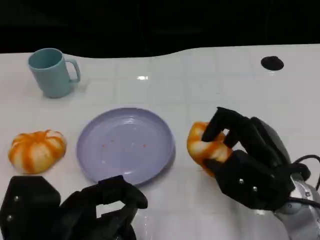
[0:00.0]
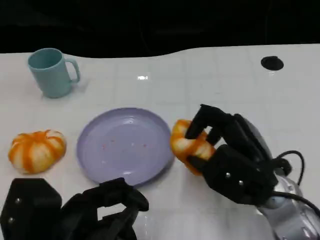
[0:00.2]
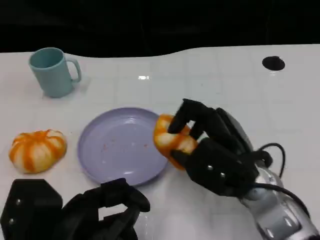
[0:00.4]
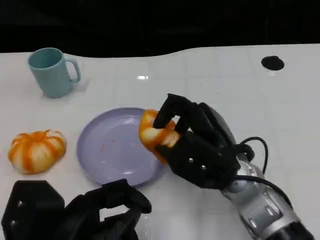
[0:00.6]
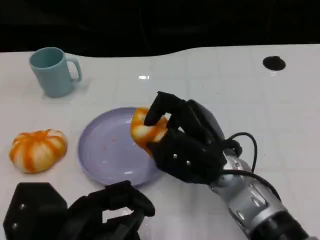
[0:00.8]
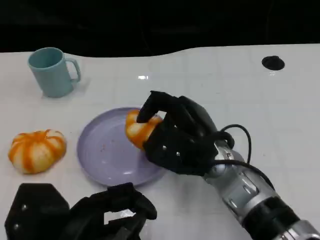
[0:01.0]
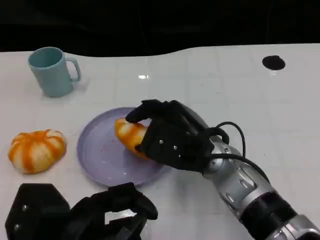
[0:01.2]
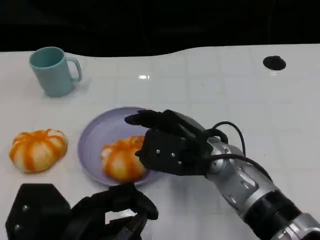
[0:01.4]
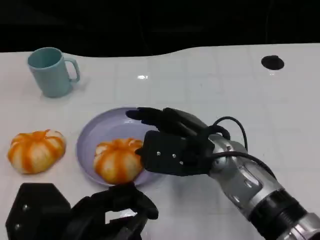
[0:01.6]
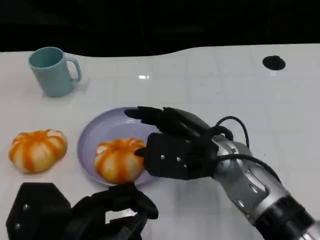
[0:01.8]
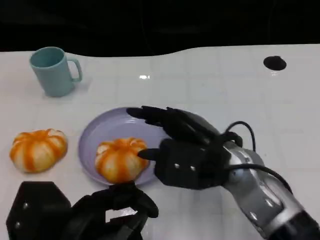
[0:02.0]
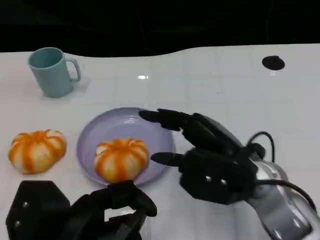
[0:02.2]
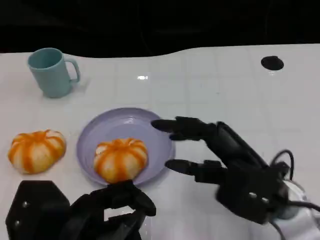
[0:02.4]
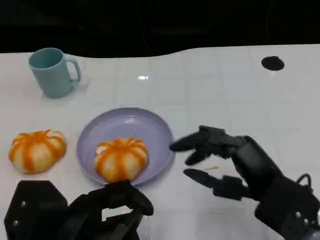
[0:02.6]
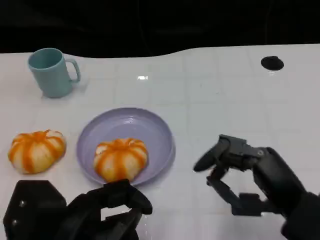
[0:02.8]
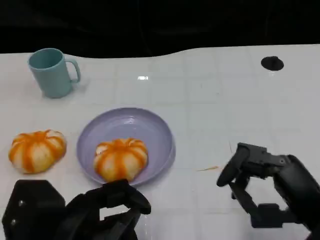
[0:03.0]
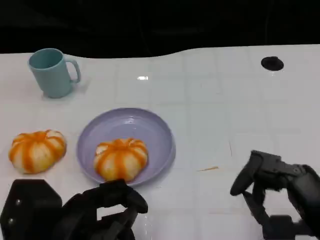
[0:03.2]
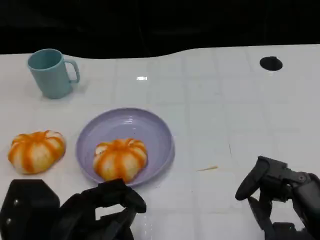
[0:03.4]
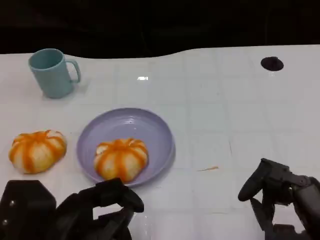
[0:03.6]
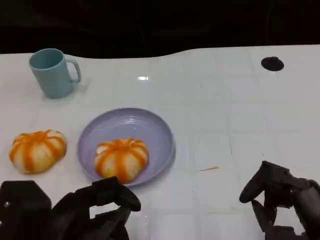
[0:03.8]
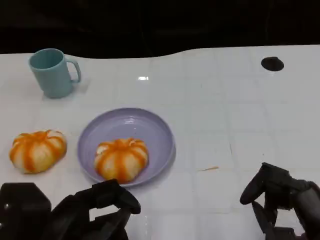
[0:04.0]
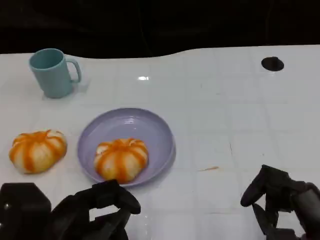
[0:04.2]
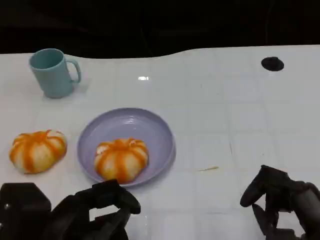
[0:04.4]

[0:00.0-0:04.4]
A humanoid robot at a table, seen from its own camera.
Task of the whole recording: Grasp the bread from the table and place it into the plate.
0:00.0 to 0:01.4: The right hand goes some 10 cm to the left.
0:01.4 to 0:03.0: The right hand shifts roughly 20 cm to the right and backward.
0:03.0 to 0:04.4: There are only small adjustments of the hands.

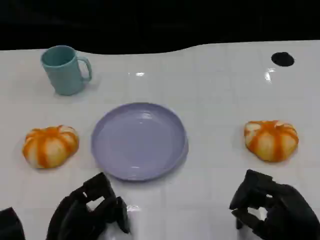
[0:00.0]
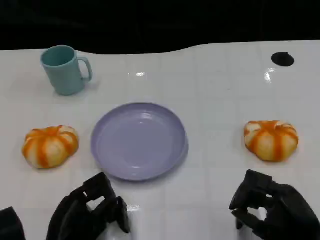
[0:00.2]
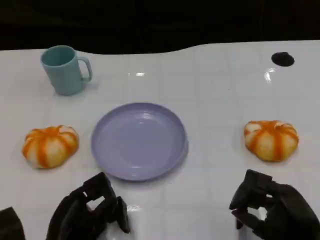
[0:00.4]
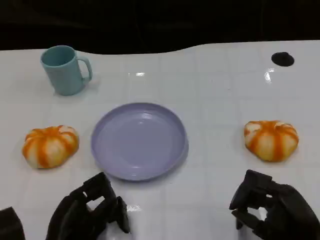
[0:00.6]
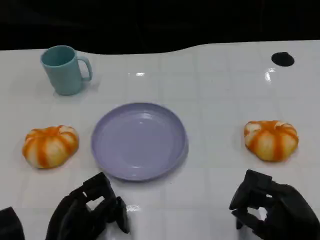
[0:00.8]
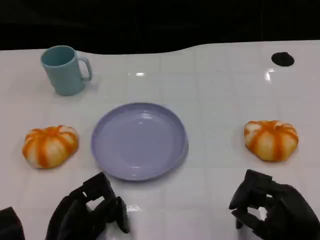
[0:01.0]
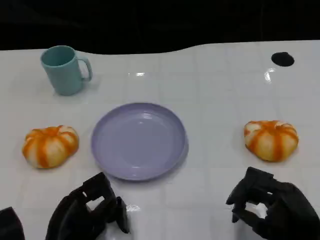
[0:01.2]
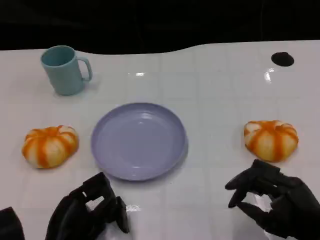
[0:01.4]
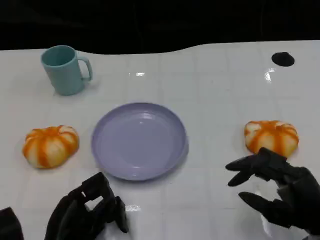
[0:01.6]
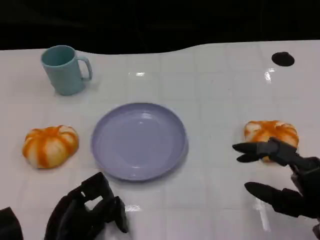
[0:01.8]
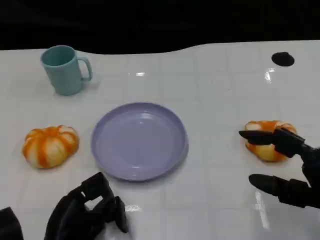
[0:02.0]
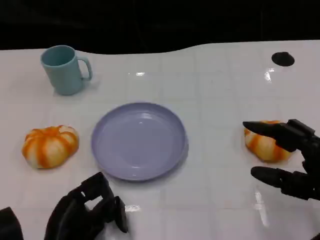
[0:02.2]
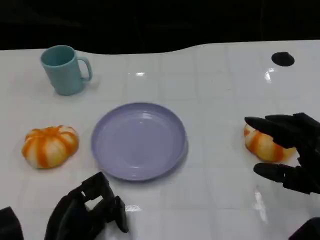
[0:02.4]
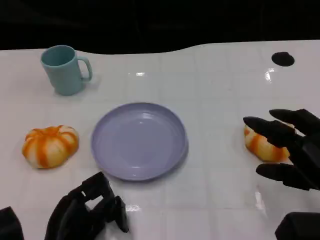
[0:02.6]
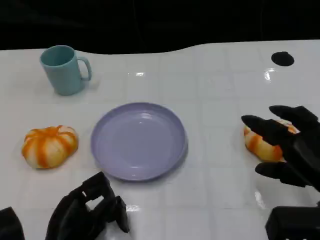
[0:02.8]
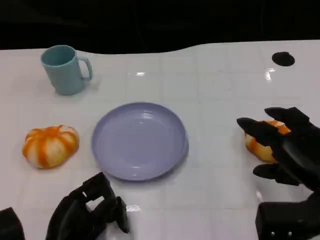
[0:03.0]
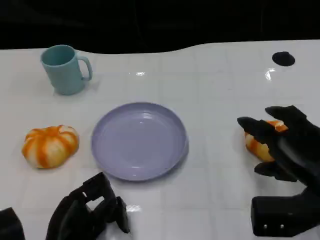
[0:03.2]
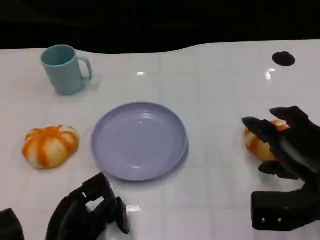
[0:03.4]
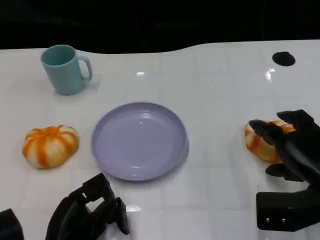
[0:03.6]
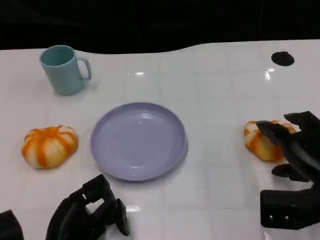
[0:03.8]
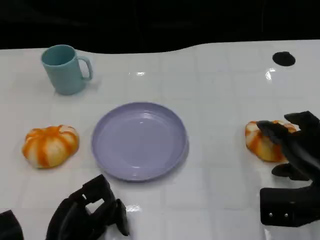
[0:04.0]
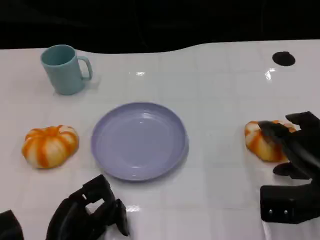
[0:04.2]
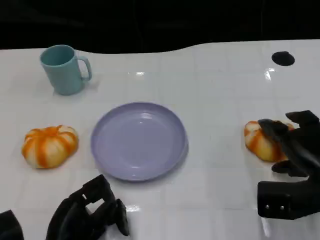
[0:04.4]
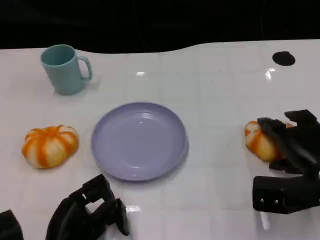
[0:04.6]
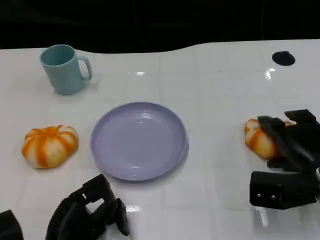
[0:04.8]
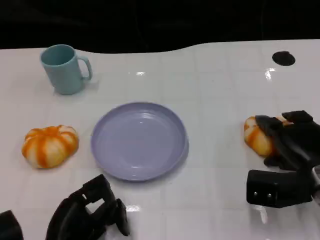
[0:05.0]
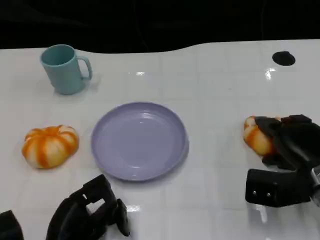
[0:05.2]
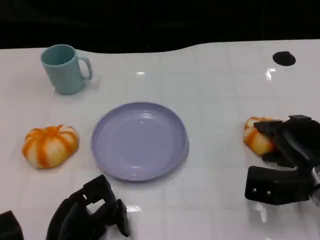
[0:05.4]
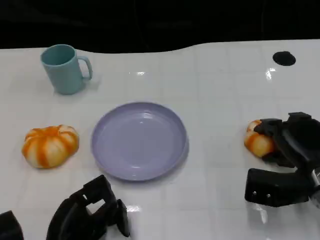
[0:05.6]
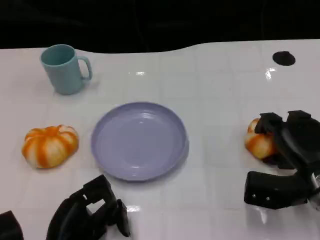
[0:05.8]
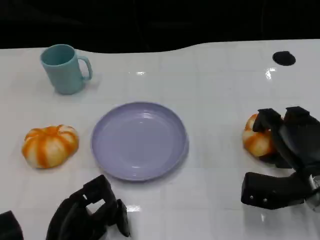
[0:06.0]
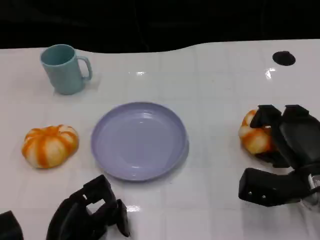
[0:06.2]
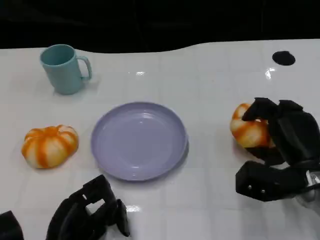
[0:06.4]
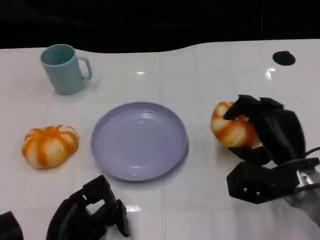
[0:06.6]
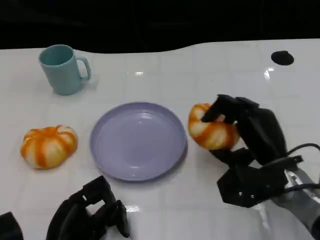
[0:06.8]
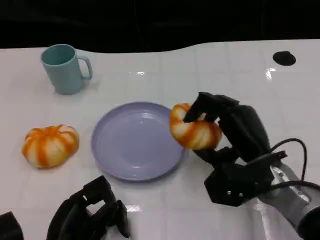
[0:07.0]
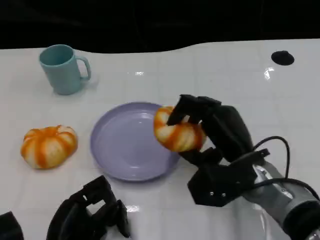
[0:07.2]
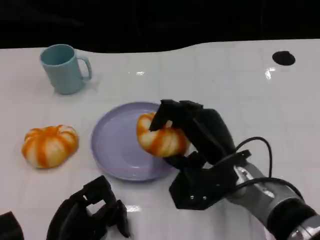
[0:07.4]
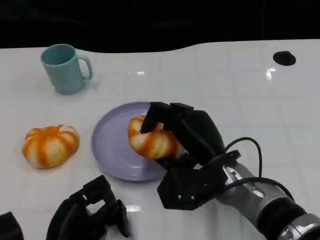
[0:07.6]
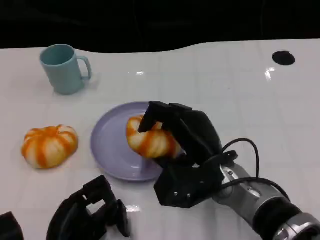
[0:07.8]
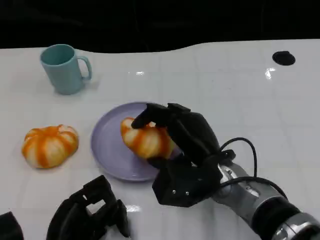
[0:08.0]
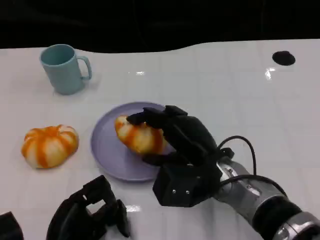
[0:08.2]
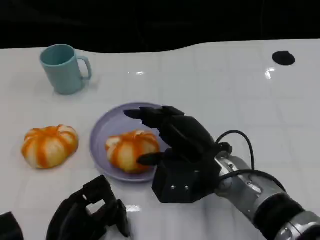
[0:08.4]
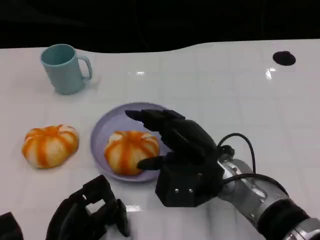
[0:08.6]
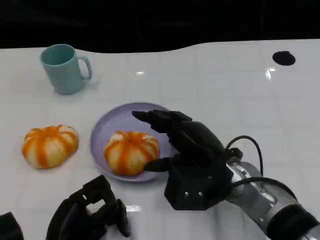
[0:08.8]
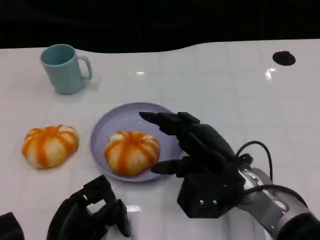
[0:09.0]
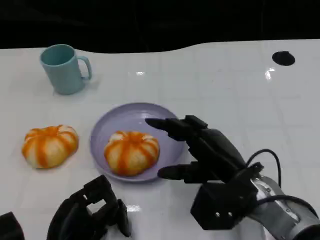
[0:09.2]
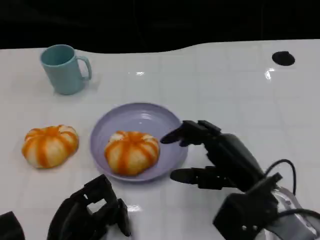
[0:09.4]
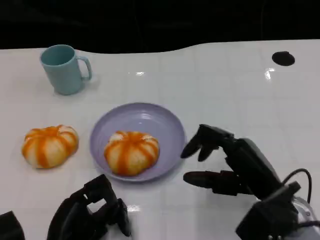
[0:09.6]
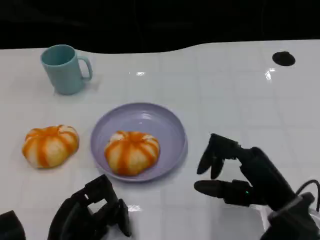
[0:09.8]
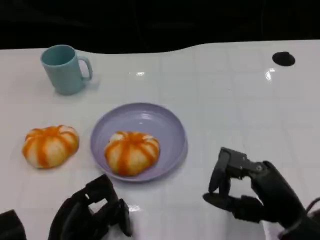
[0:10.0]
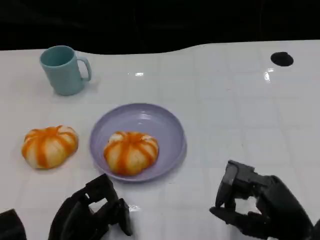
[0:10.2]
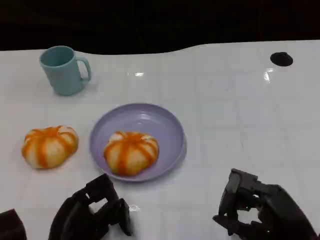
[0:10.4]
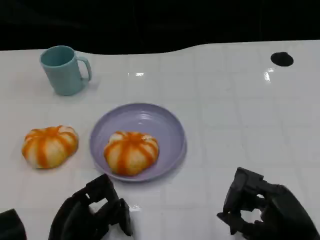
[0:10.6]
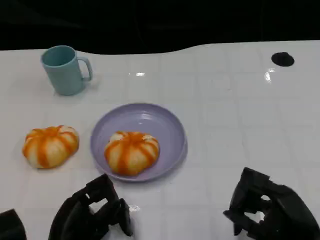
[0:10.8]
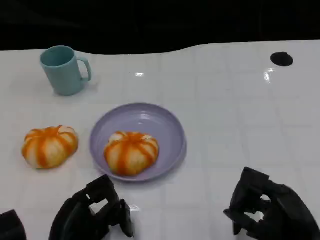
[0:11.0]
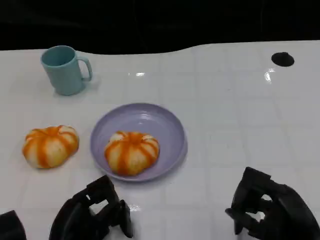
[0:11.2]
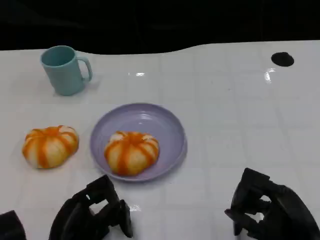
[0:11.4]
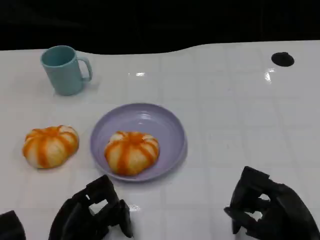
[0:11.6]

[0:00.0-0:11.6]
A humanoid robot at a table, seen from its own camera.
Task of the whole recording: Grasp the bread from the table and place it into the plate.
0:00.0 to 0:01.4: The hands stay close to where they were, moving slightly.
0:01.4 to 0:02.8: The right hand travels upward by roughly 5 cm.
0:02.8 to 0:04.4: The right hand moves forward, roughly 5 cm.
0:04.4 to 0:05.8: The hands move only a little.
0:05.8 to 0:07.2: The right hand moves to the left, some 10 cm.
0:08.8 to 0:10.2: The right hand travels to the right and backward by approximately 15 cm.
0:10.2 to 0:11.6: The hands make only small movements.

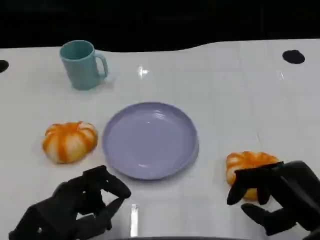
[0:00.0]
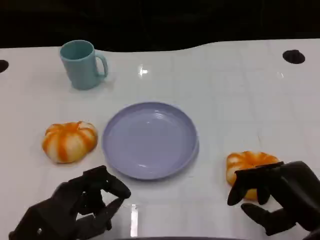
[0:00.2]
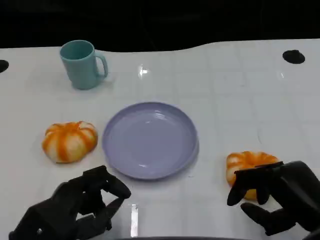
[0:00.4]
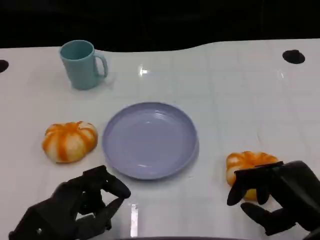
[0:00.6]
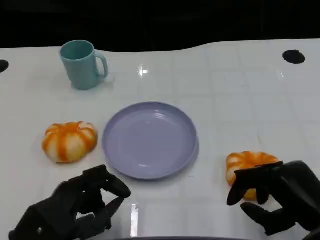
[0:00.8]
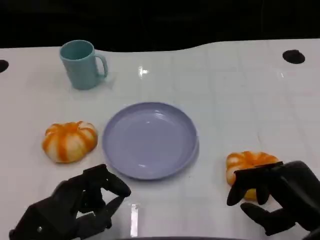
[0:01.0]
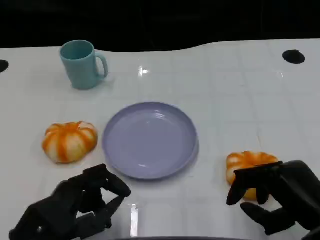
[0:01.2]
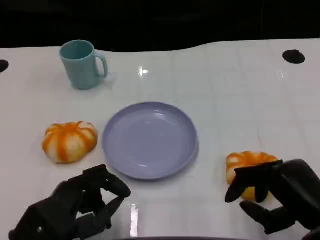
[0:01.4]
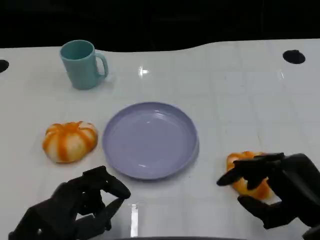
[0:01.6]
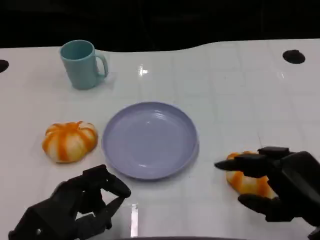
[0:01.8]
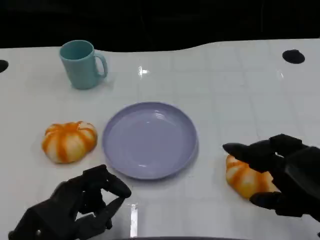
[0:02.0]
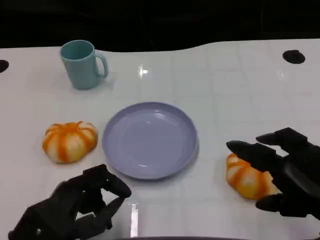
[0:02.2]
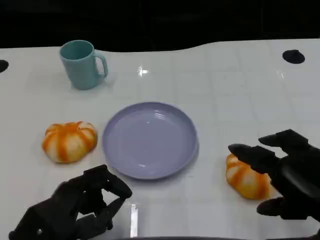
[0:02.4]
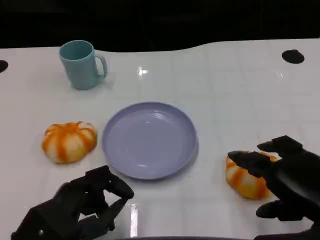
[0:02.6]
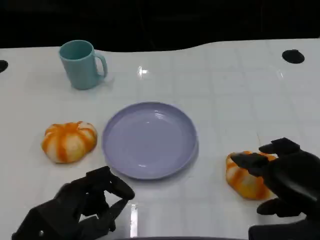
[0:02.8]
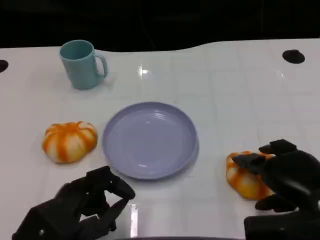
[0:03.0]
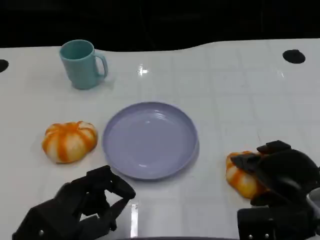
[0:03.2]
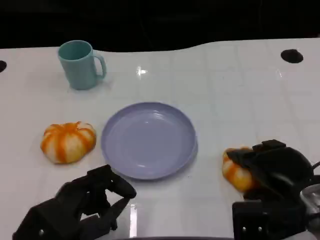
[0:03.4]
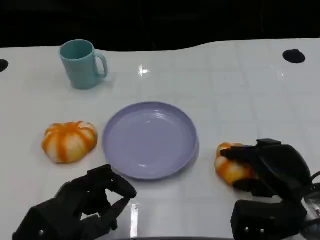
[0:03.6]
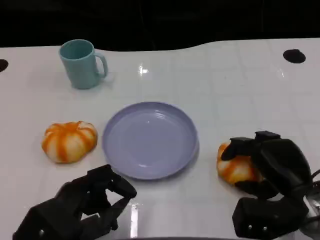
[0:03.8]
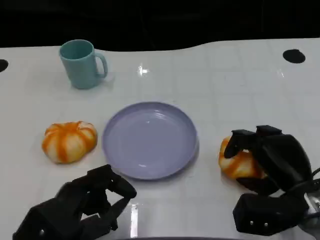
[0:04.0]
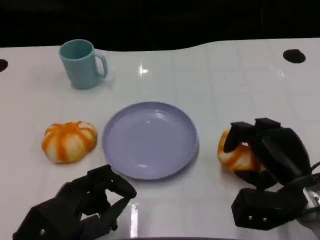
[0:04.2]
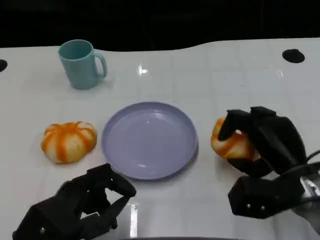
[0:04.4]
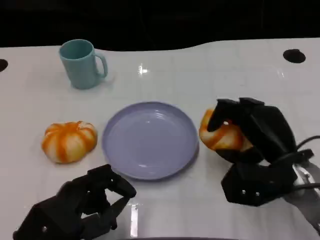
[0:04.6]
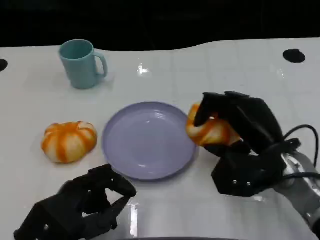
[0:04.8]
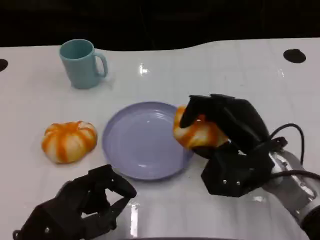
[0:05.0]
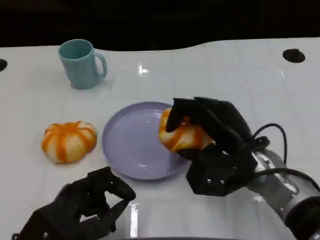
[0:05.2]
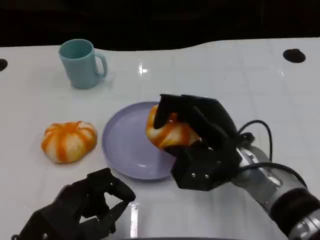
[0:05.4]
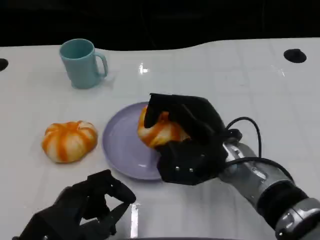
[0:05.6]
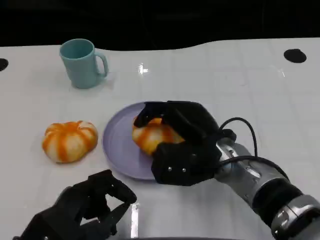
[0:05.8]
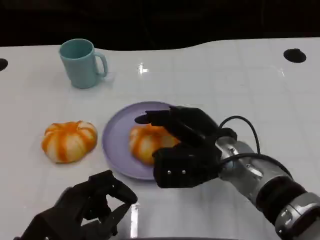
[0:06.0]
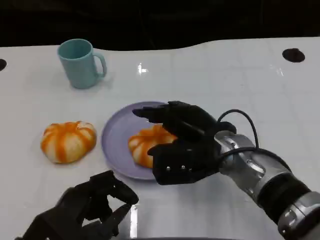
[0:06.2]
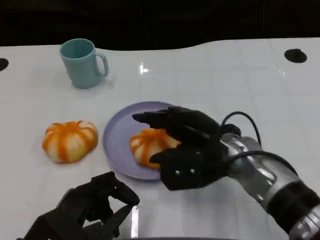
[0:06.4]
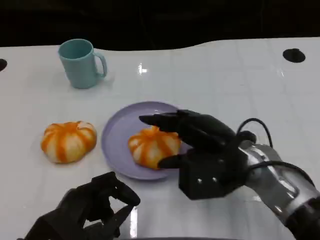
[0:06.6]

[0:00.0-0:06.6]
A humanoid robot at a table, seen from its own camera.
Task of the whole recording: Grasp the bread from the table and place it into the plate.
0:00.0 to 0:01.6: There are only small adjustments of the hands.
0:01.6 to 0:03.2: The right hand heads forward, covering about 5 cm.
0:03.2 to 0:05.0: The right hand goes about 10 cm to the left and forward.
